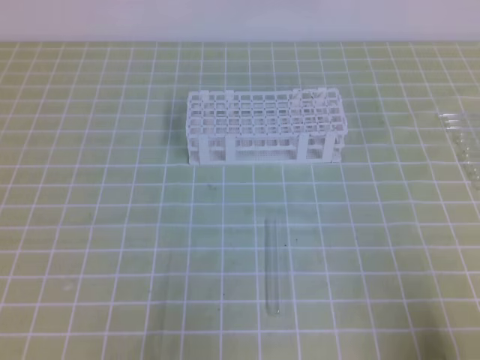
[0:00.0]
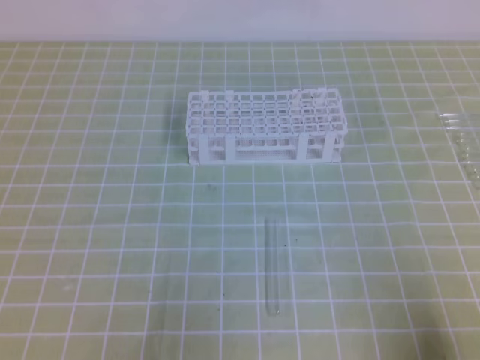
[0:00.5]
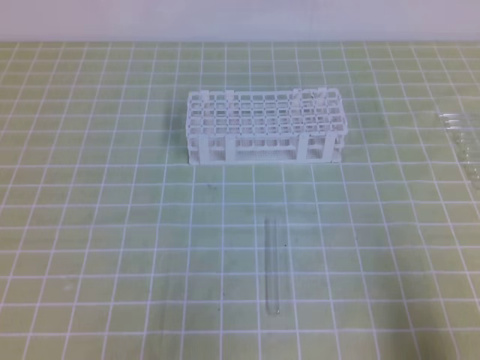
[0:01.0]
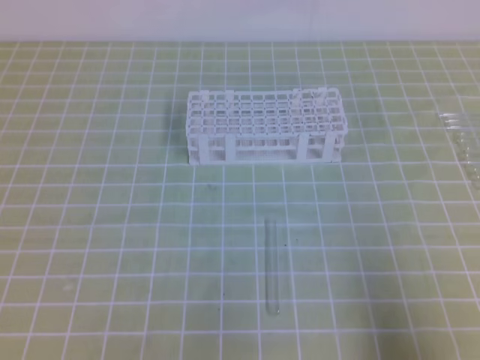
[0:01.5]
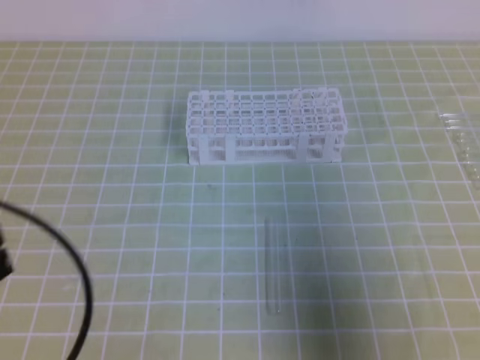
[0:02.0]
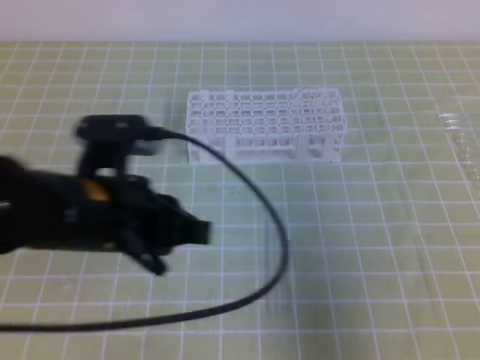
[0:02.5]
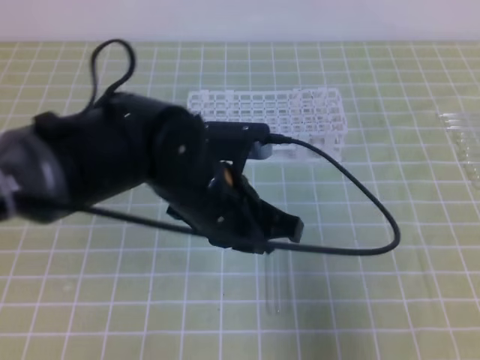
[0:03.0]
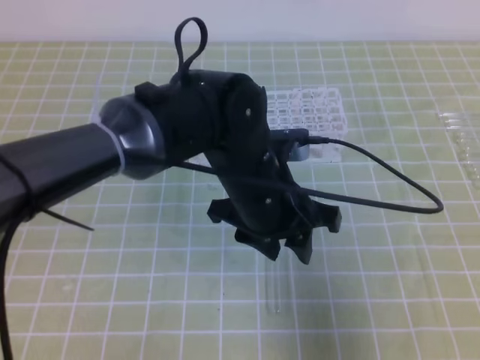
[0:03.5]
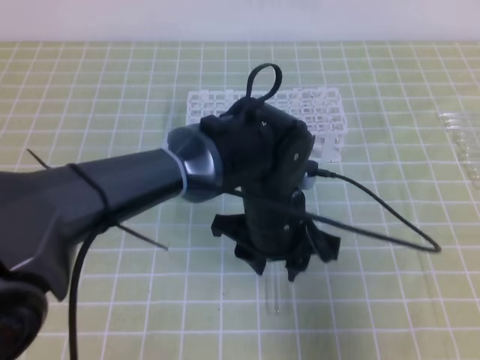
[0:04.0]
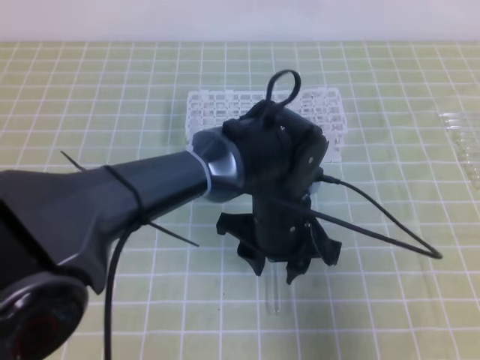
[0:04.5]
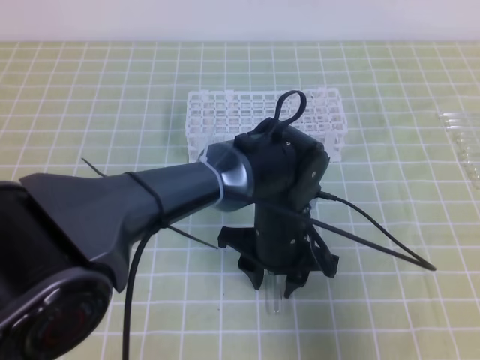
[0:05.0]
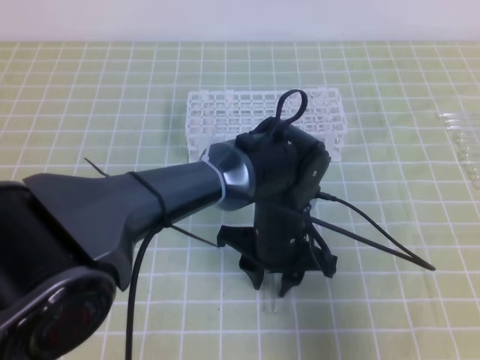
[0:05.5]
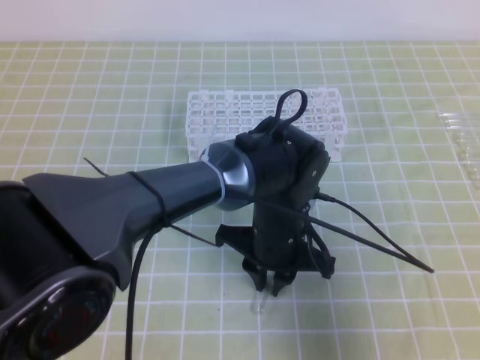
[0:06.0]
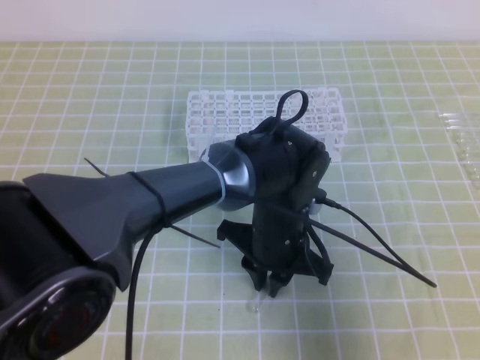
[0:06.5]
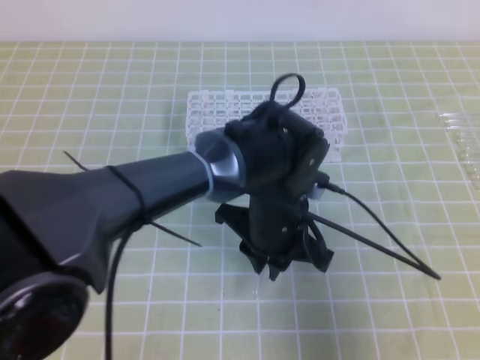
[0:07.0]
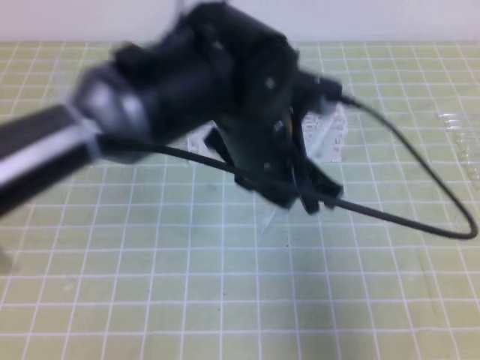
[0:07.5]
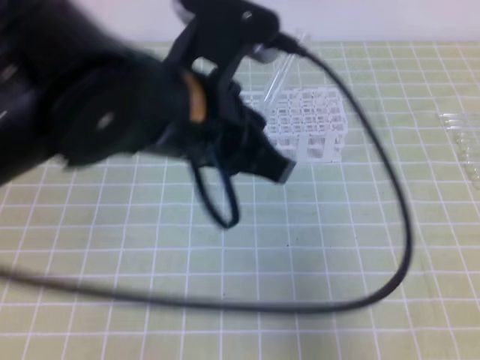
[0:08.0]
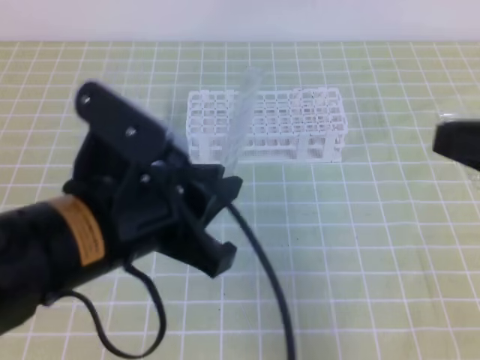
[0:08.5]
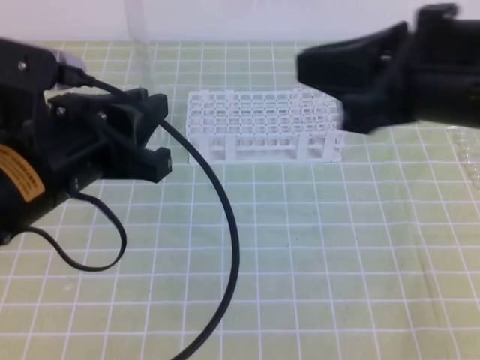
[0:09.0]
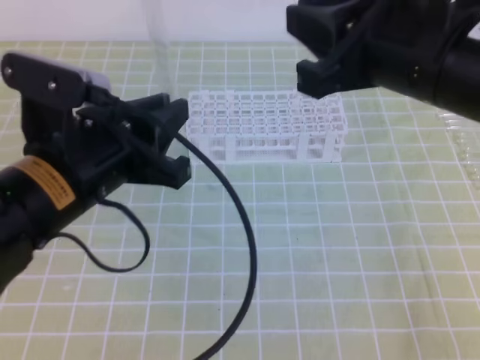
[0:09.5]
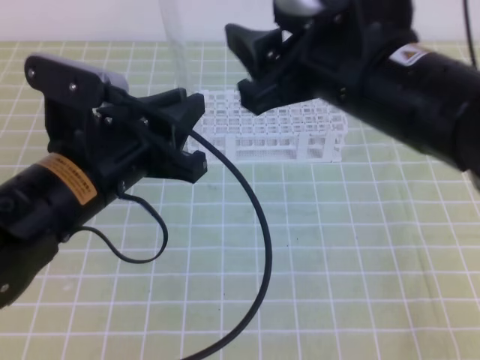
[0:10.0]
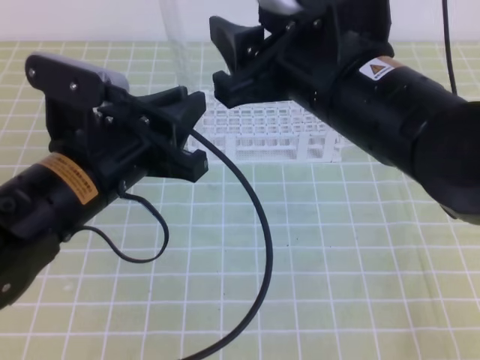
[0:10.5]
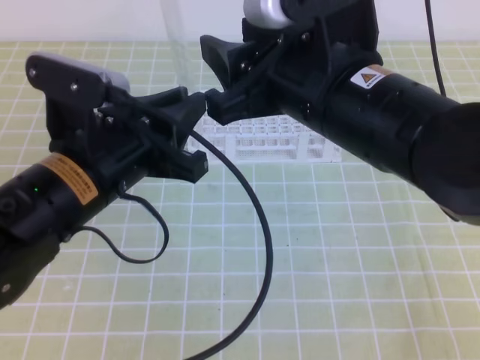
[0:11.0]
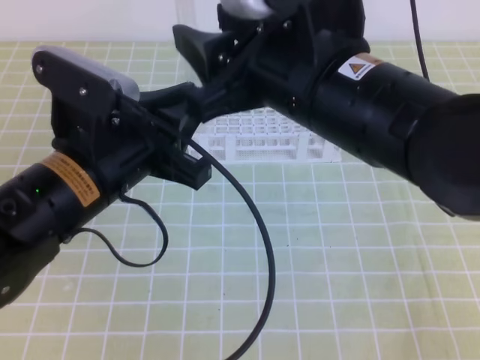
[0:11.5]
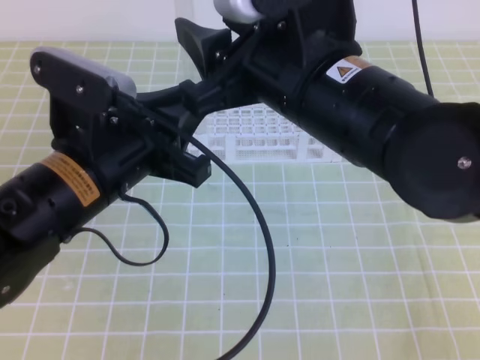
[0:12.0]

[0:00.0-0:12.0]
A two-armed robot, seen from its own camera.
0:00.0 to 0:02.0: The left gripper goes approximately 10 cm upward and forward, while the right gripper shifts approximately 15 cm upward.
0:02.0 to 0:04.0: The left gripper travels to the right and forward by some 30 cm, and opens.
0:04.0 to 0:06.0: The left gripper shifts by approximately 5 cm, and closes up.
0:06.0 to 0:08.0: The left gripper goes approximately 25 cm upward and to the left.
0:08.0 to 0:10.0: The right gripper shifts some 20 cm to the left and forward, and opens its fingers, while the left gripper shifts roughly 10 cm to the left and downward.

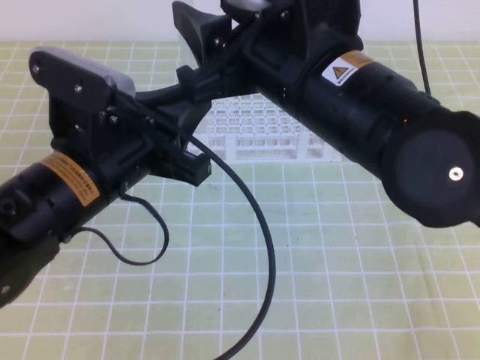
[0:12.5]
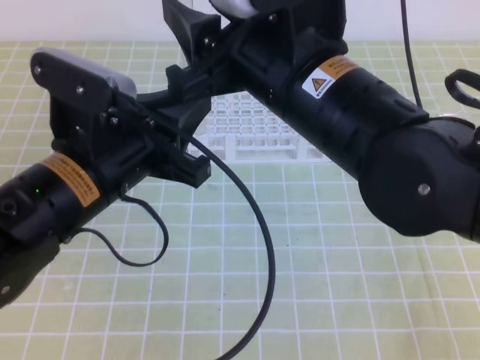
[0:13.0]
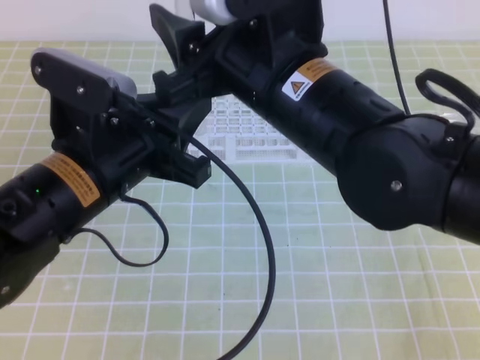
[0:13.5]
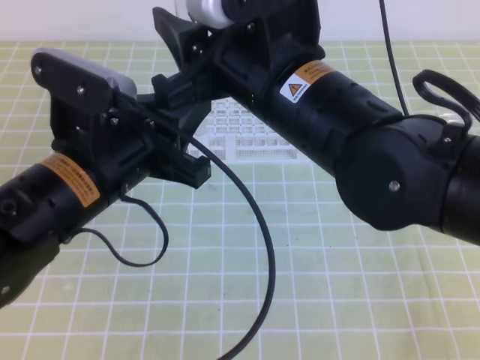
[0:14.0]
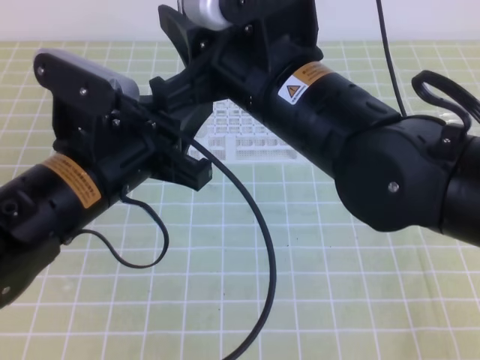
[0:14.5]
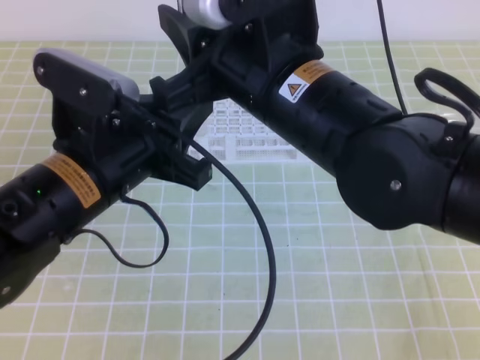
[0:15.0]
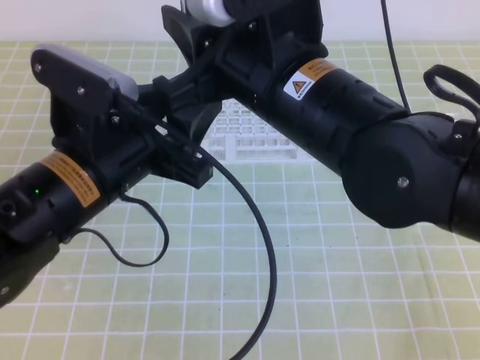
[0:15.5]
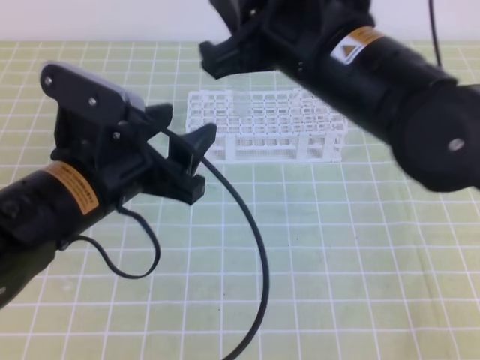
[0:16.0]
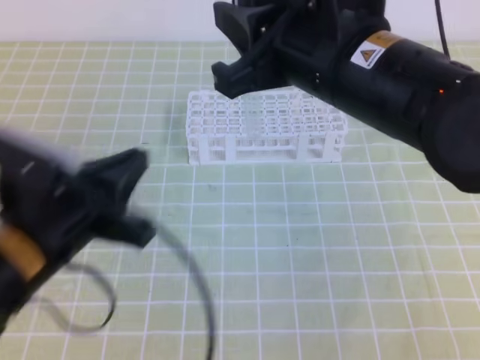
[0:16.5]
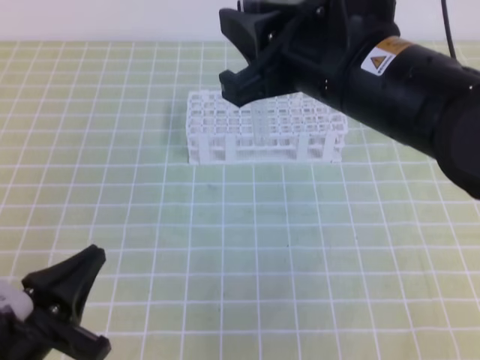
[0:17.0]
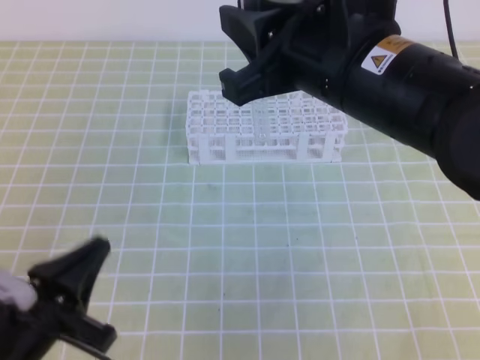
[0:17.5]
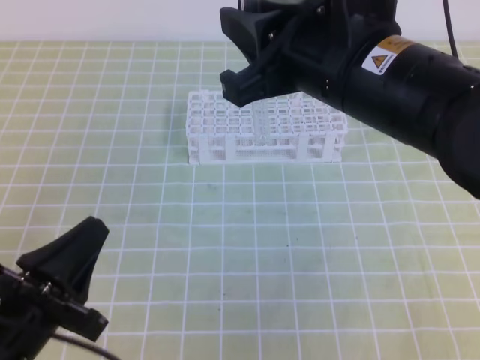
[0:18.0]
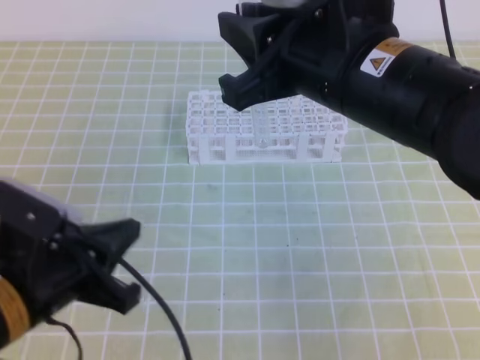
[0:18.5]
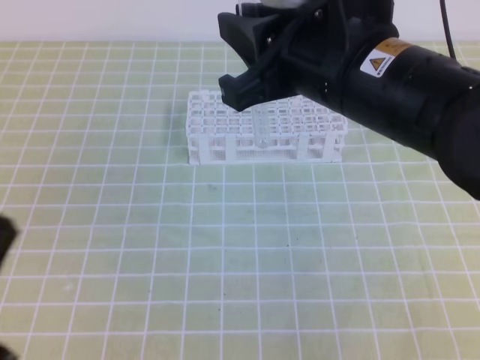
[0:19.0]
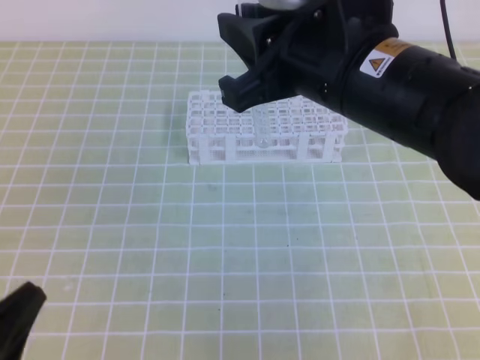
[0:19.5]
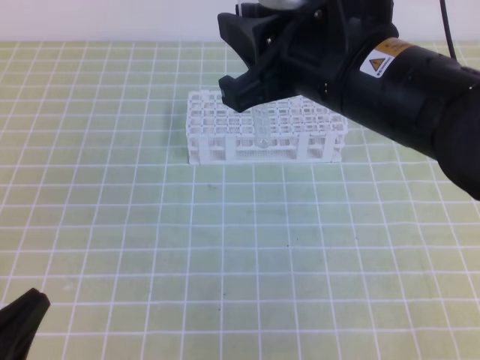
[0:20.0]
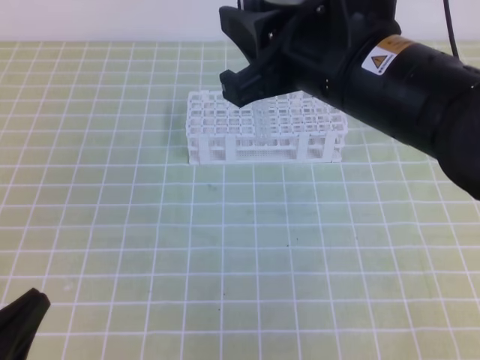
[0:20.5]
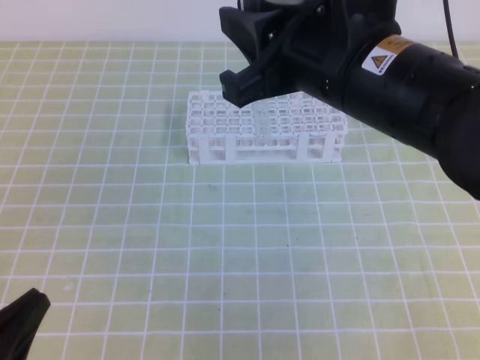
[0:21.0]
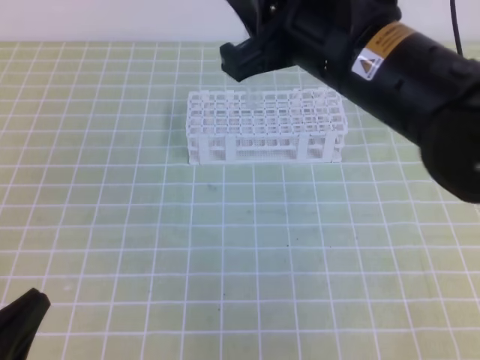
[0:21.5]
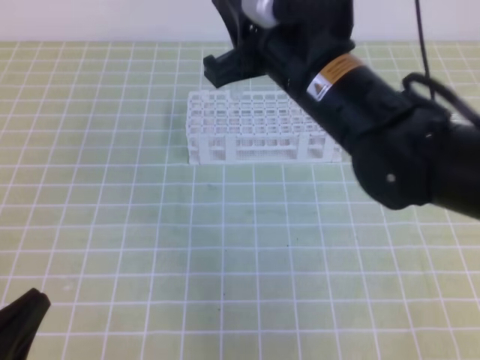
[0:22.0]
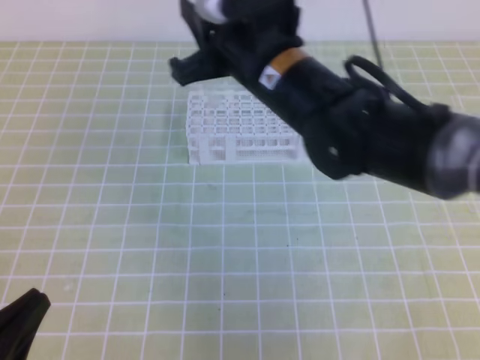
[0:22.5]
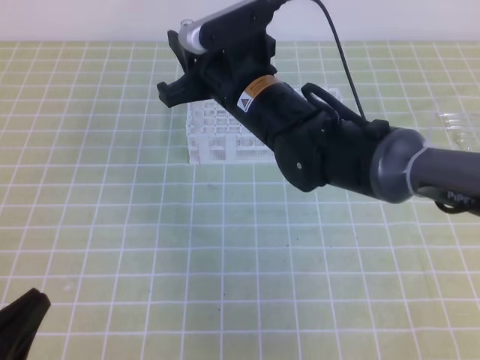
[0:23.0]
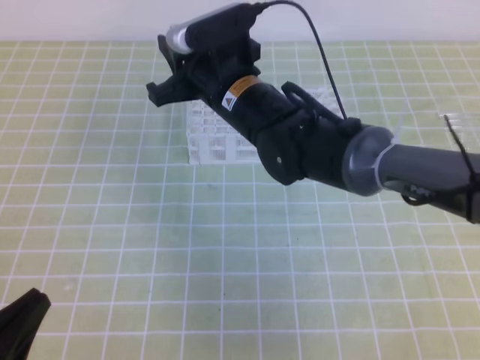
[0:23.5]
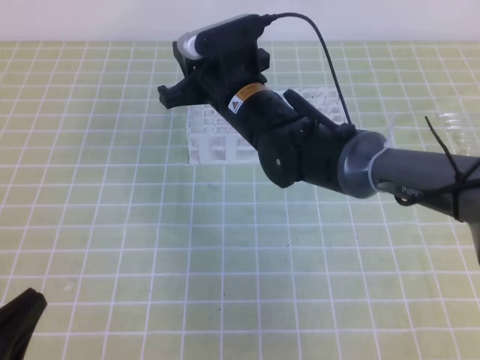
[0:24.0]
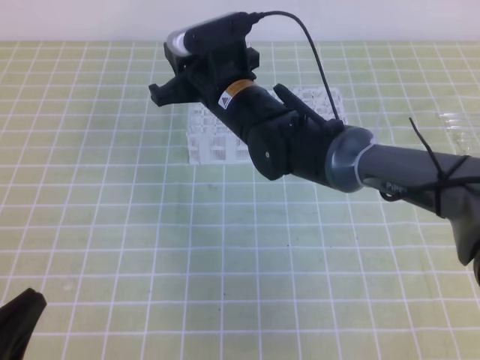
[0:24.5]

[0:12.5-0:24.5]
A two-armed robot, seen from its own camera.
0:12.5 to 0:14.5: The right gripper closes up.
0:14.5 to 0:16.5: The left gripper goes approximately 5 cm downward, and opens, then closes once more.
0:18.5 to 0:20.5: The left gripper moves backward and to the left, about 10 cm.
0:20.5 to 0:22.5: The right gripper moves forward, downward and to the left, approximately 10 cm.
0:22.5 to 0:24.5: The right gripper shifts some 10 cm downward and forward.

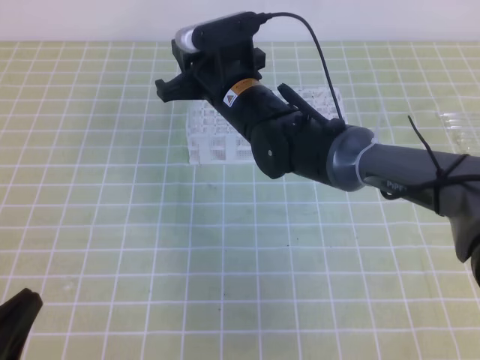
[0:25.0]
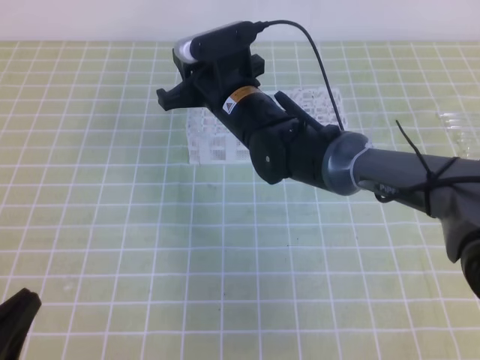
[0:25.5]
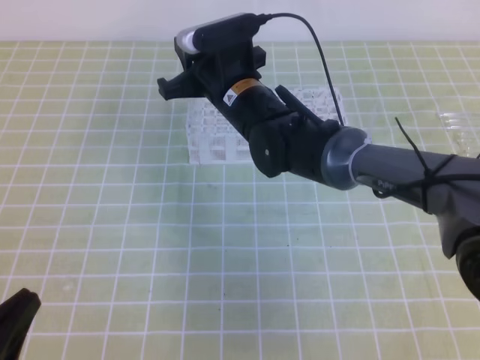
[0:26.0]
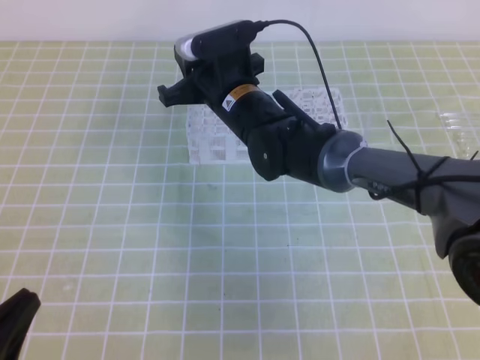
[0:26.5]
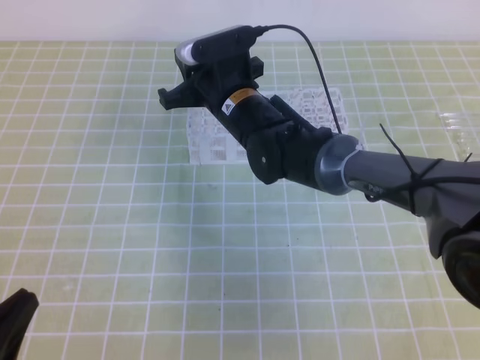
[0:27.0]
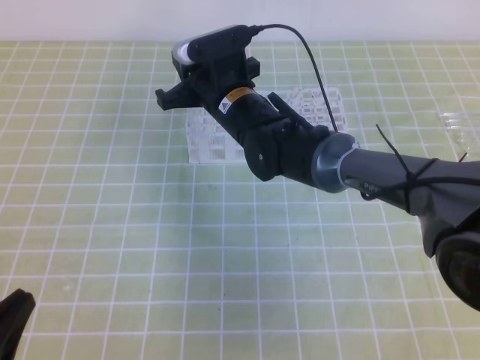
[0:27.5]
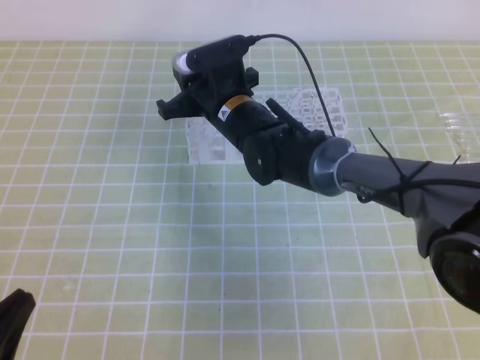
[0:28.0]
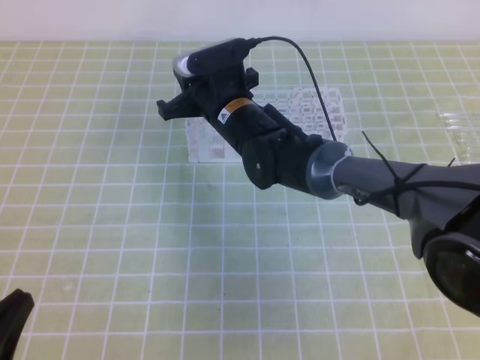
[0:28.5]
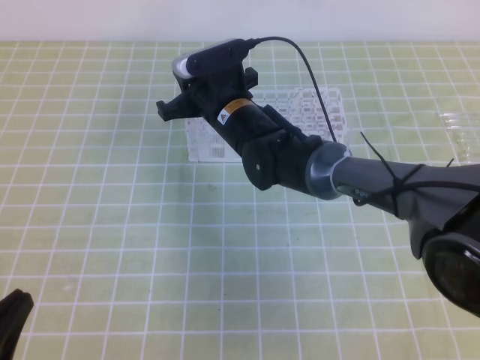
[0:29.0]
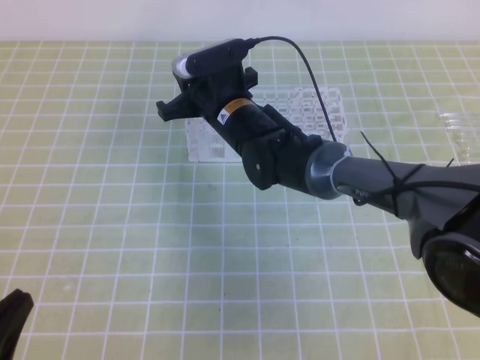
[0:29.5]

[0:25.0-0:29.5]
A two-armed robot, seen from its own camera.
0:25.0 to 0:29.5: There are only small adjustments of the grippers.
